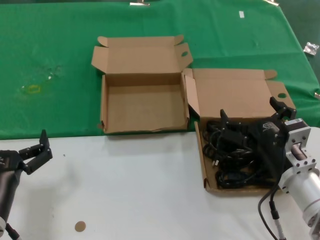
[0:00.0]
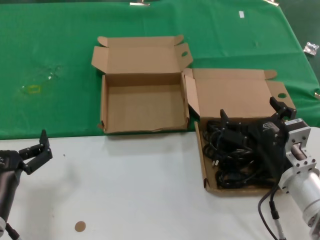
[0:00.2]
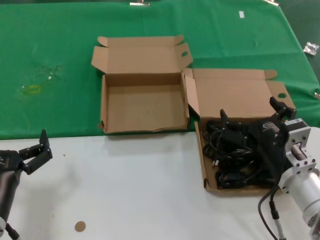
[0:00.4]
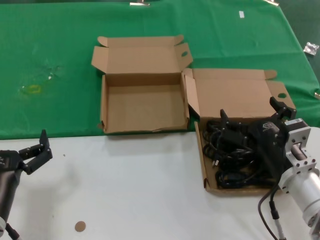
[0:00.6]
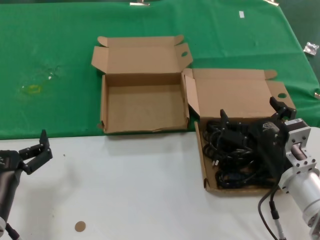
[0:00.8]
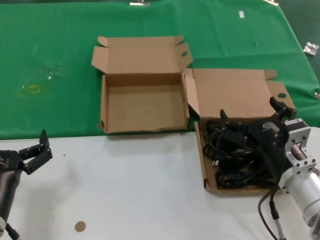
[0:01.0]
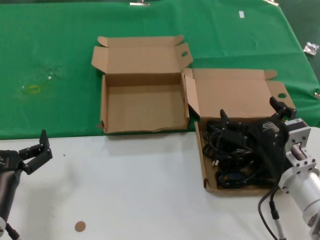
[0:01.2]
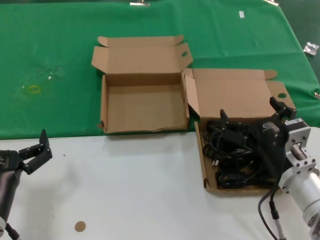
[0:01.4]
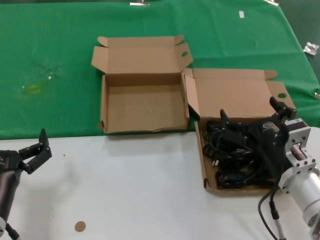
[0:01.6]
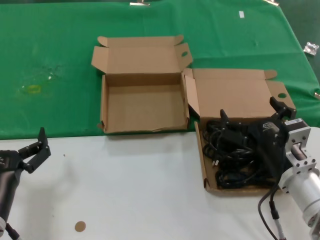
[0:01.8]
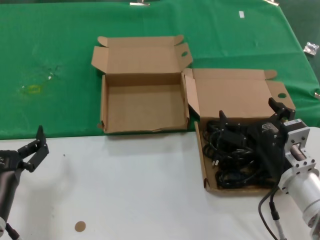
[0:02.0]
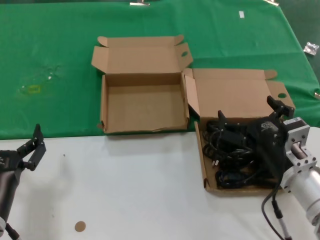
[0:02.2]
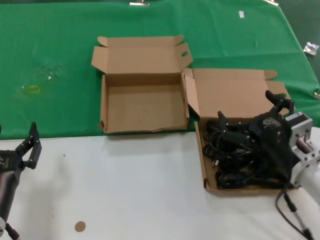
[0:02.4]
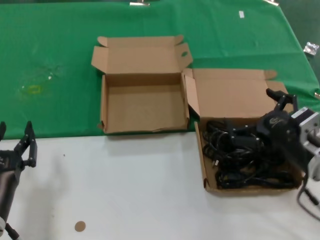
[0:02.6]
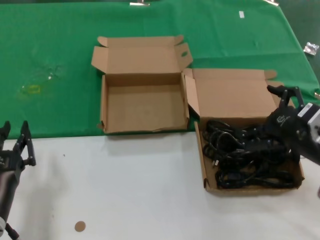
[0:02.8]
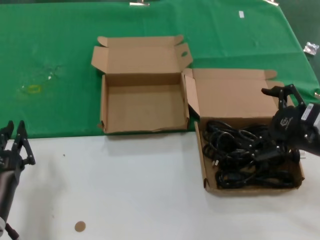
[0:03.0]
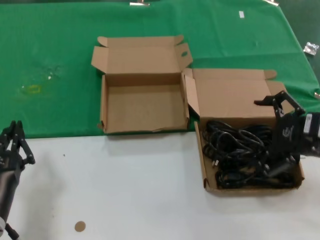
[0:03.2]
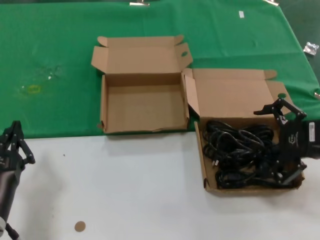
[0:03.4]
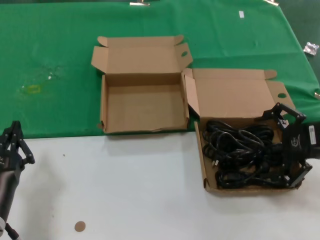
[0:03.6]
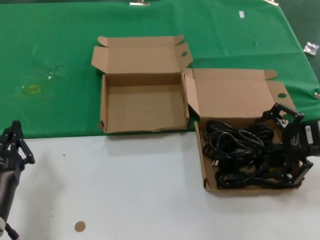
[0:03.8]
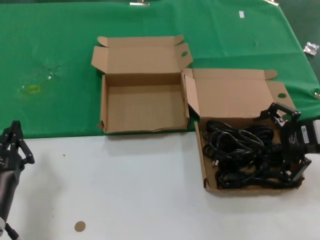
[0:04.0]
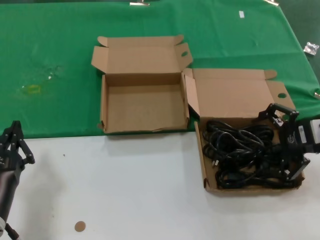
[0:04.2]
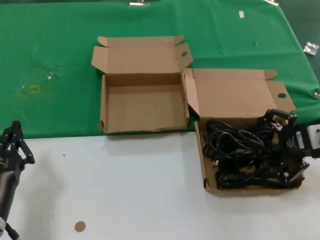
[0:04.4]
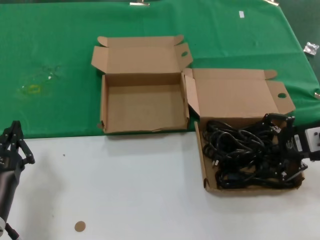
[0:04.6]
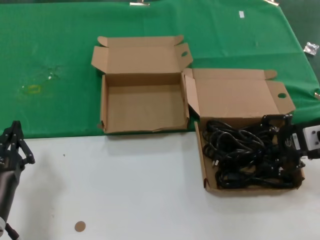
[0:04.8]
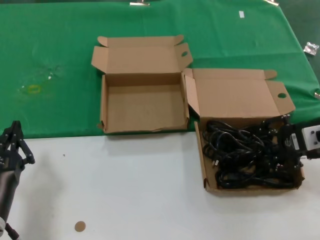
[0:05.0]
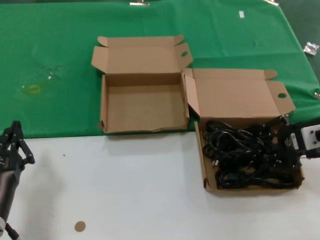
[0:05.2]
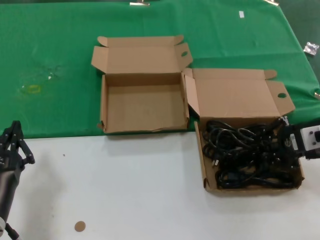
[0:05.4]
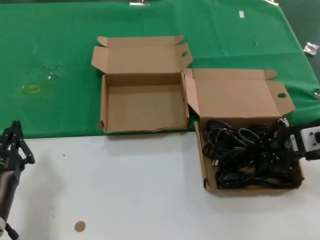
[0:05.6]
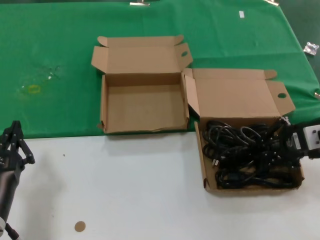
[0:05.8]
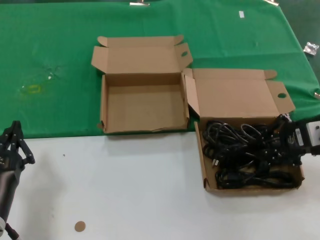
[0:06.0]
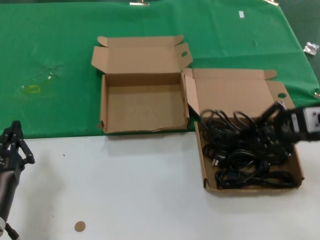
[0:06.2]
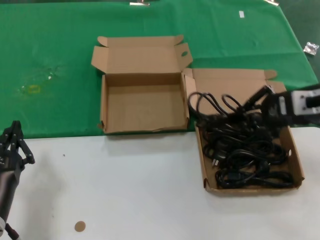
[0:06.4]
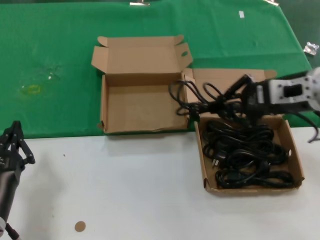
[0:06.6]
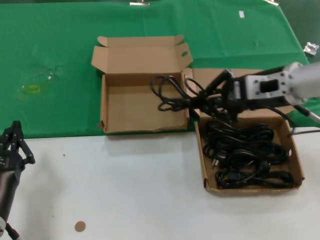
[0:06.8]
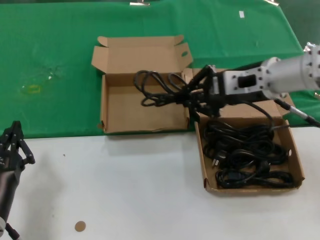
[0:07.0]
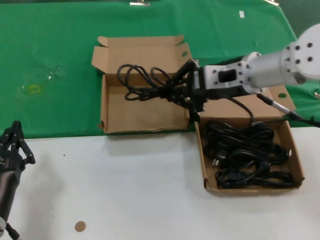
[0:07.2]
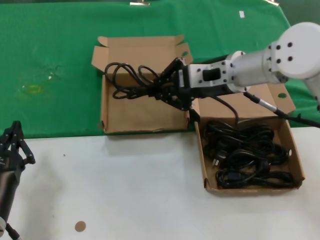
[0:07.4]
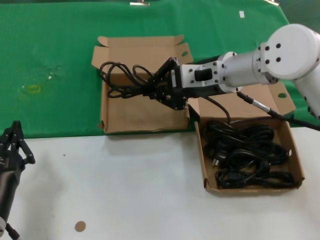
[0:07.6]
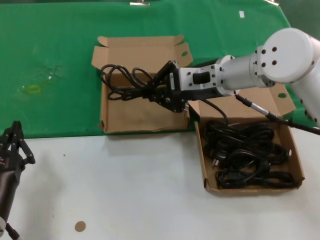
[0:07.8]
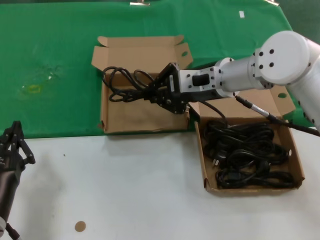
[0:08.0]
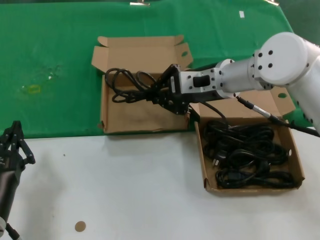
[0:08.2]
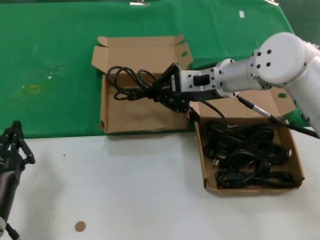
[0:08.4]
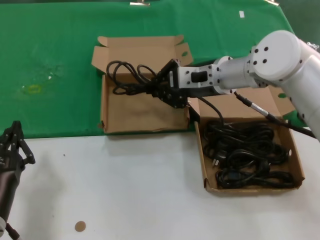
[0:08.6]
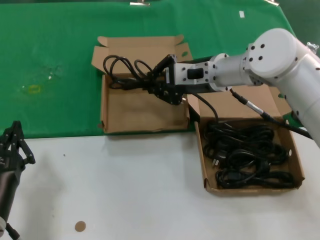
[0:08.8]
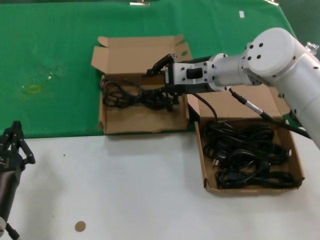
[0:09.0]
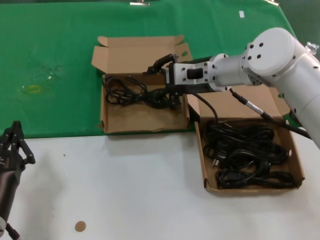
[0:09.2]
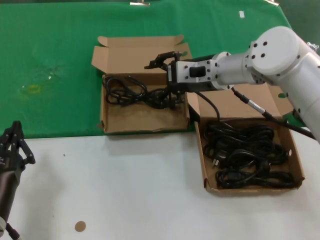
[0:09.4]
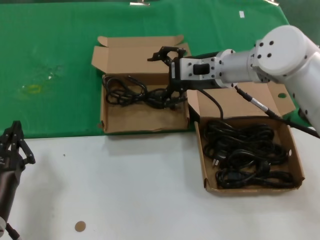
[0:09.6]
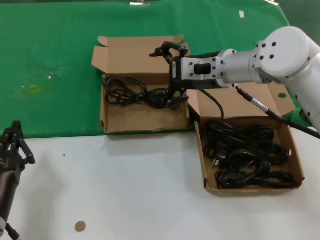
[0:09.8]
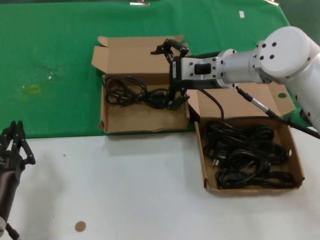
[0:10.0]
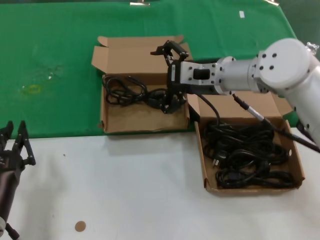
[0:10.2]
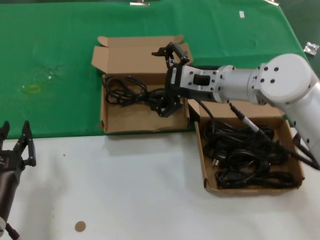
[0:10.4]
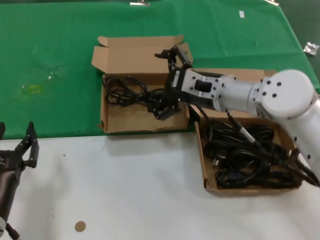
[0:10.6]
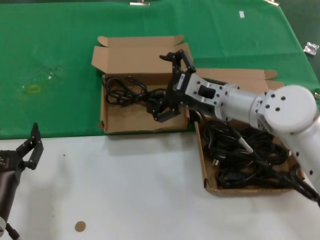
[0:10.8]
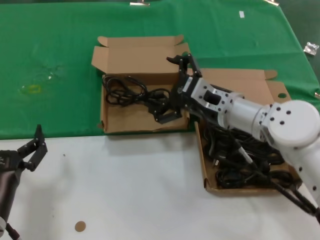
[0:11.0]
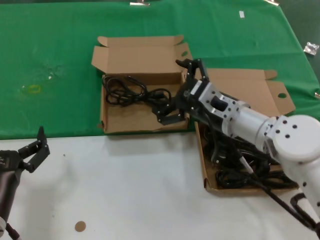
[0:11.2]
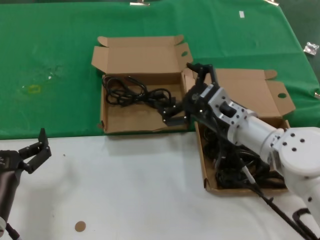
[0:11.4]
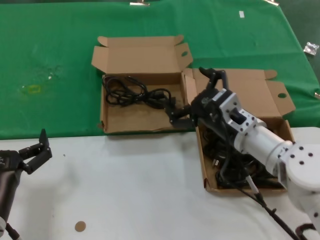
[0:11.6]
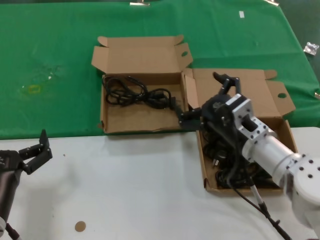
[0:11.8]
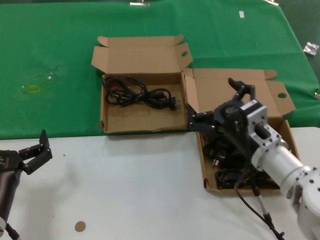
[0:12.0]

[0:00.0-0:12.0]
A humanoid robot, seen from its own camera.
Task of the whole recording: take the parts from the box containing them and put them into an empty box.
Step, 0:00.0 to 0:05.4: Grasp the data cable.
Step, 0:05.6 to 0:09.6: Place the data cable in the another box.
0:00.0 to 0:01.6: Both hands stay about where they are.
0:01.6 to 0:03.0: The right hand is displaced to the right and upward by some 15 cm.
0:03.0 to 0:04.4: The right hand goes about 5 cm forward.
0:04.4 to 0:06.0: The hands stay close to where they were, moving slightly.
0:06.0 to 0:07.6: The right hand travels to the left and forward by approximately 20 cm.
0:07.6 to 0:10.4: The hands make only small movements.
0:10.4 to 0:12.0: The right hand shifts roughly 20 cm backward and downward.

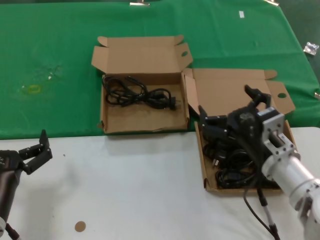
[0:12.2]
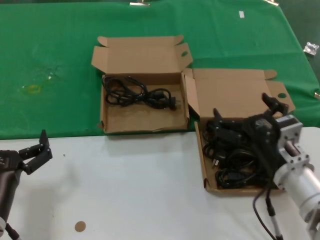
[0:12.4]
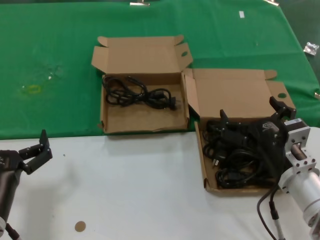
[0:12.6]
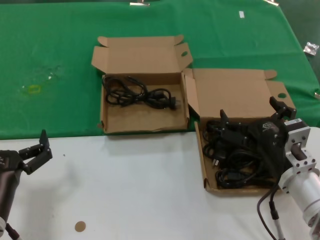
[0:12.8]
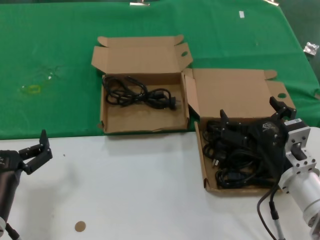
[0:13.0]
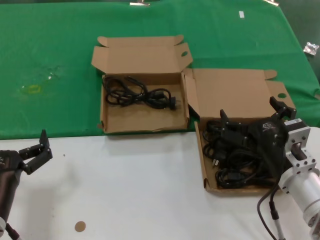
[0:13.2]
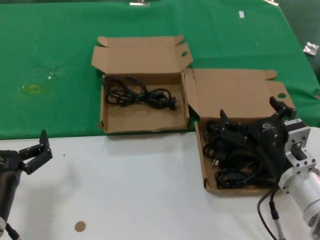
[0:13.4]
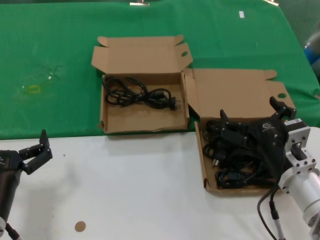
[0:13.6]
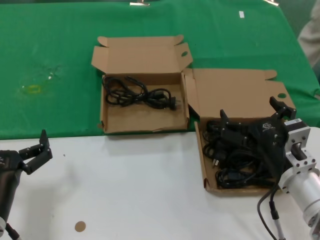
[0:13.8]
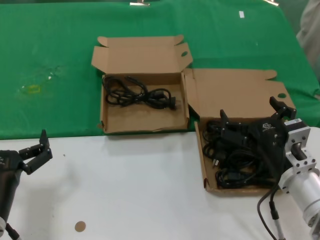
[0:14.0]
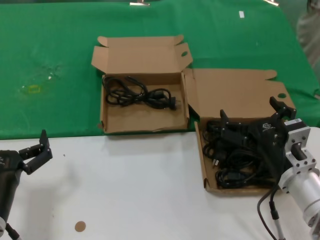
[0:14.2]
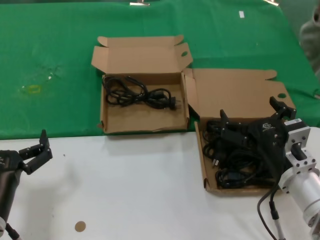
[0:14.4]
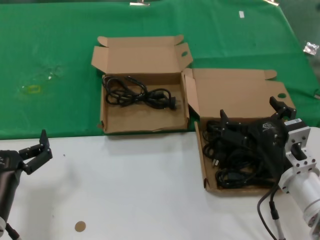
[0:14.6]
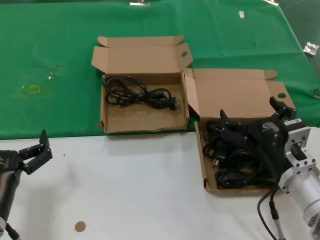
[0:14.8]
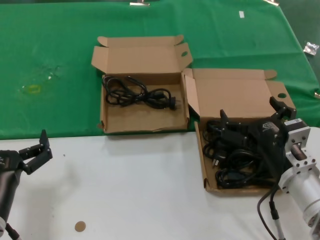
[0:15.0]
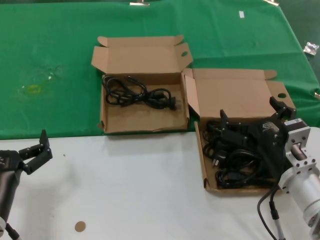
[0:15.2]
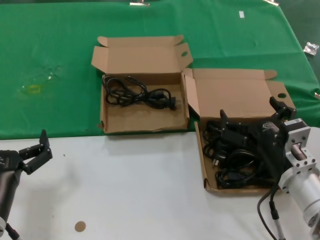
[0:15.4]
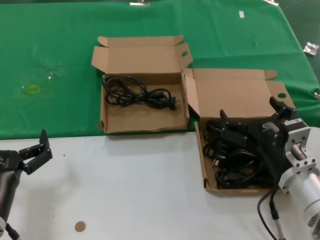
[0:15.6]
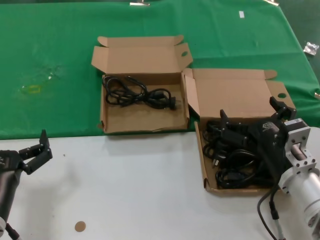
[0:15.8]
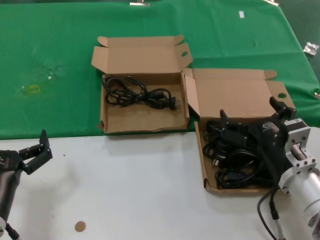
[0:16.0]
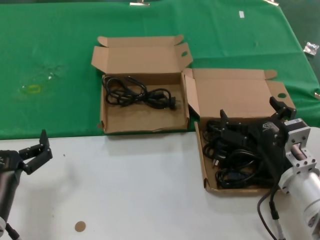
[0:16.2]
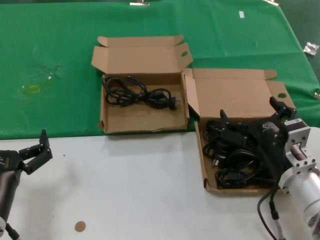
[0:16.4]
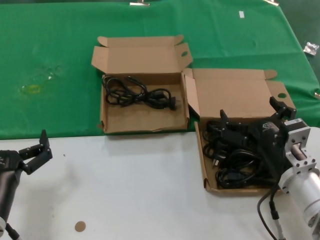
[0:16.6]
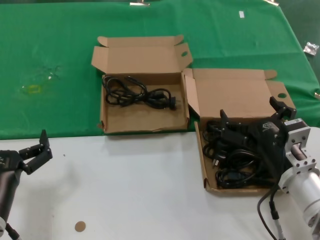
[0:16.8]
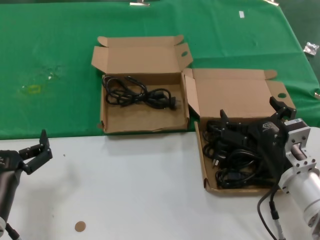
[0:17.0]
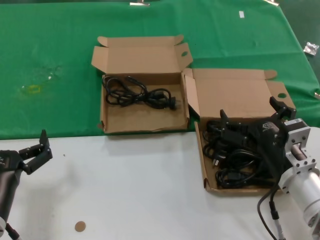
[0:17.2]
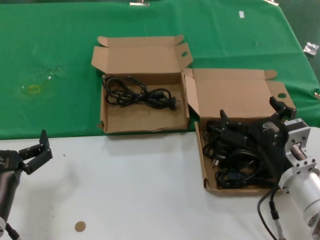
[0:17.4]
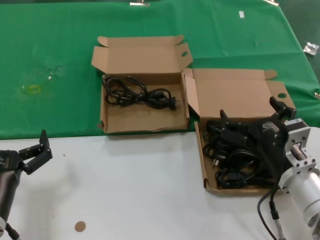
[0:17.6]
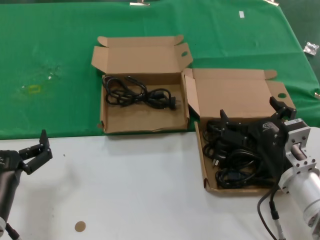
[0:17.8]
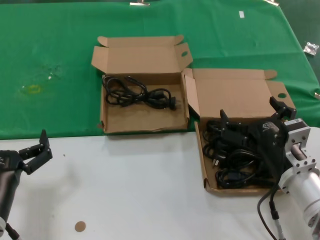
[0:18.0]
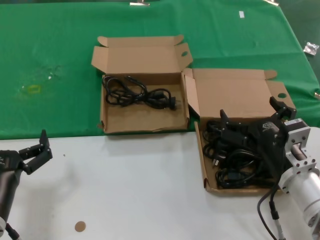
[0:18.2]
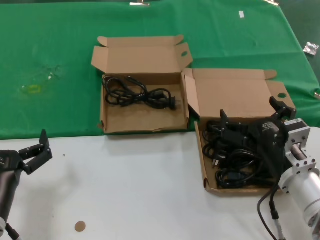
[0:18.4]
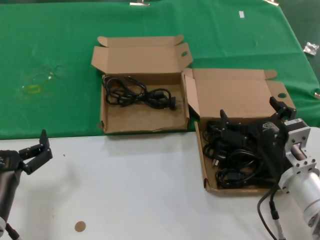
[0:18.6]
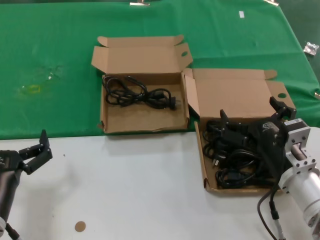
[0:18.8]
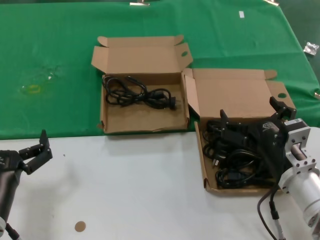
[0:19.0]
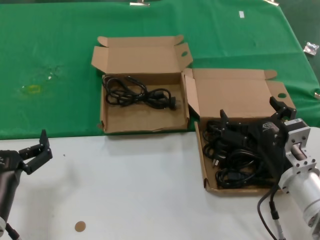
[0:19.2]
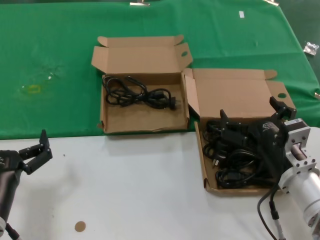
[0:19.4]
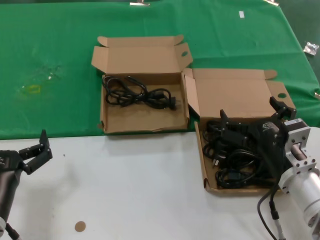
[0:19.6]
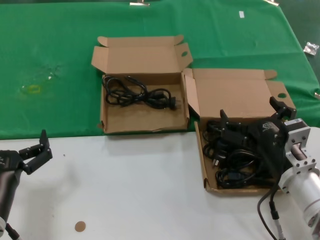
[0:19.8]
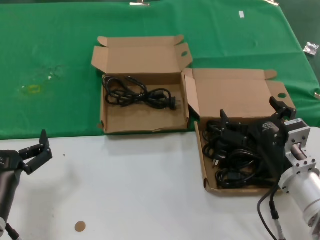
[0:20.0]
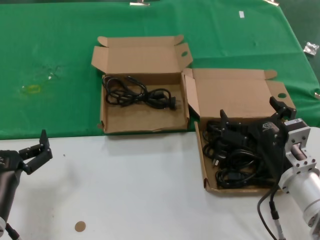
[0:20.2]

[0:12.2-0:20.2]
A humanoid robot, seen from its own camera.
Task of the whole recording: take the parts from the box containing them and put them into an empty box.
0:12.2 to 0:13.8: The hands make only small movements.
0:13.8 to 0:20.2: The two hands keep their place.

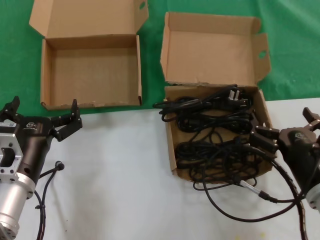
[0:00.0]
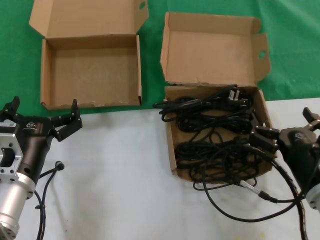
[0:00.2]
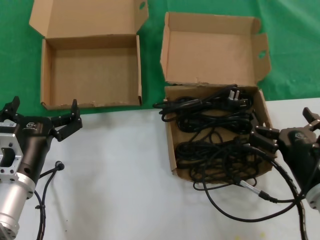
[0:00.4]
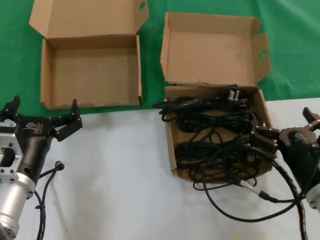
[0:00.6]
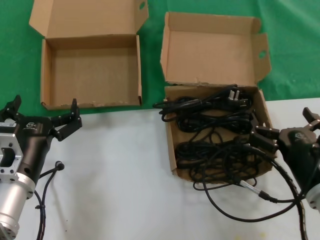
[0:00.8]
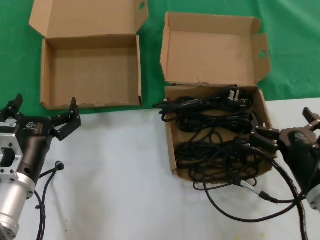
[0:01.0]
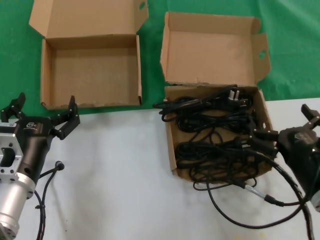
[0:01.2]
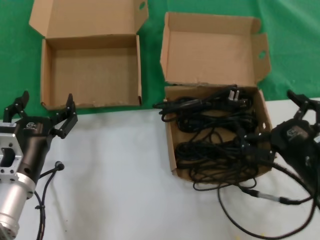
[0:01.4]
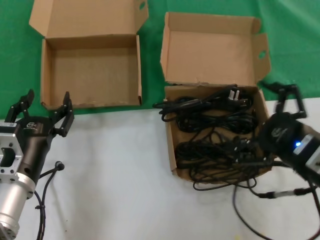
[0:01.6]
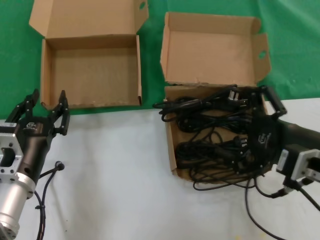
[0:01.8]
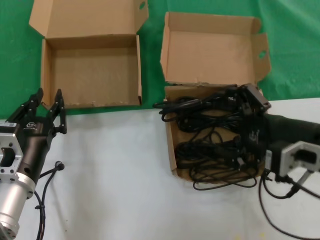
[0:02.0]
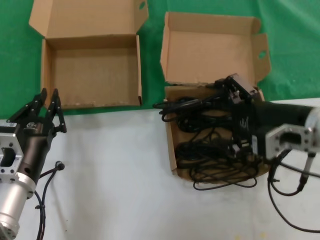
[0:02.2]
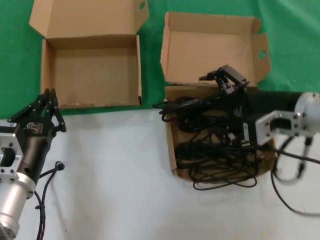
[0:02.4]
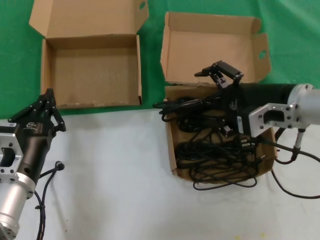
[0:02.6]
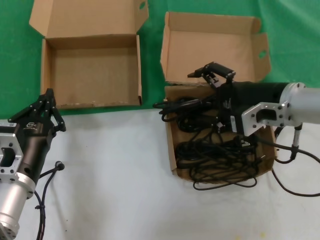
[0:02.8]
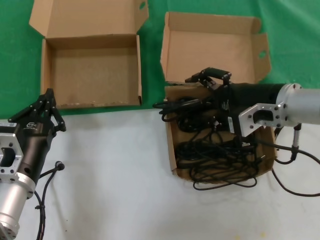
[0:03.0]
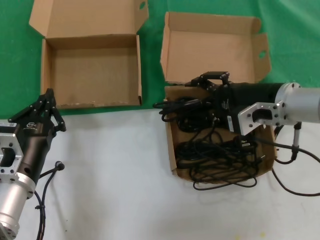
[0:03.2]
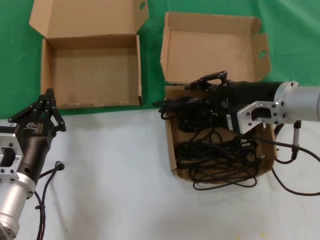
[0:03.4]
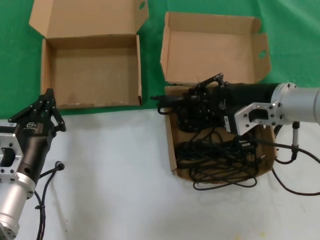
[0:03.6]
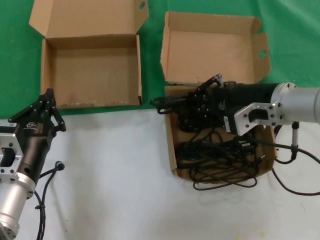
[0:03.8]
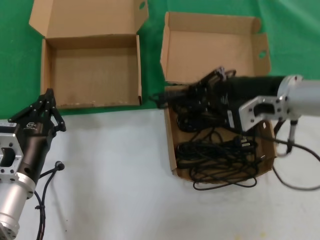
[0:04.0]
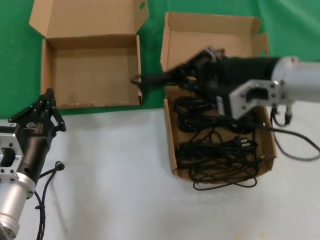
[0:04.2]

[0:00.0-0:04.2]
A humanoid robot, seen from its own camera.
Task of the whole recording: take the parts from the box containing them and put them into an empty box.
Step, 0:00.0 to 0:03.6: Grasp the data cable.
0:01.4 to 0:02.8: The right hand shifts about 20 cm forward and upward.
0:02.8 to 0:04.2: The right hand moves upward, approximately 5 cm.